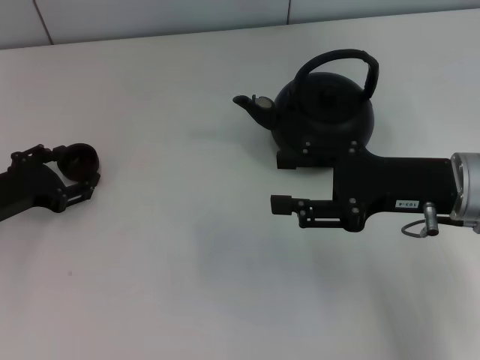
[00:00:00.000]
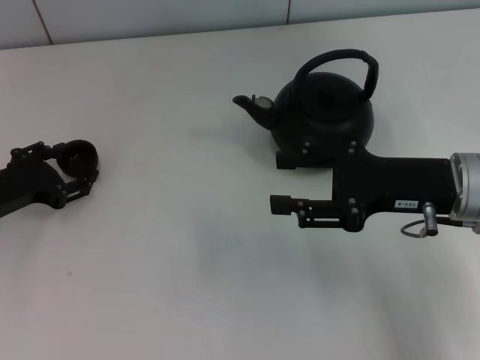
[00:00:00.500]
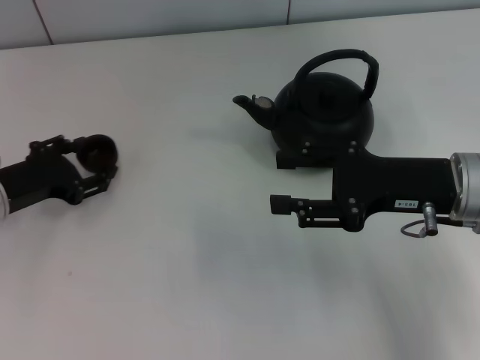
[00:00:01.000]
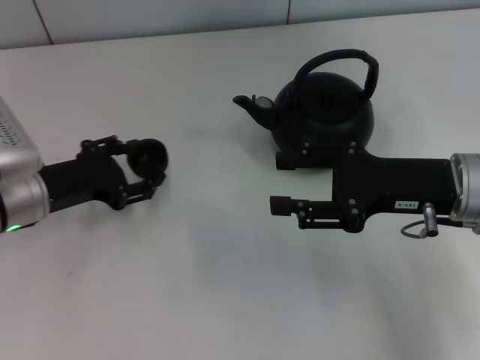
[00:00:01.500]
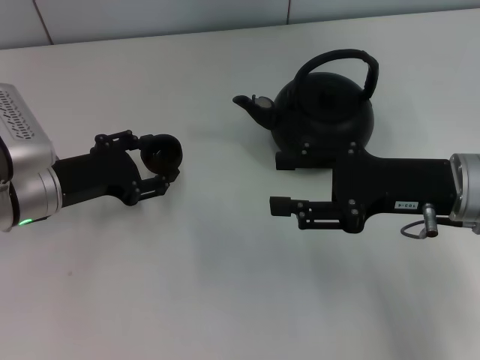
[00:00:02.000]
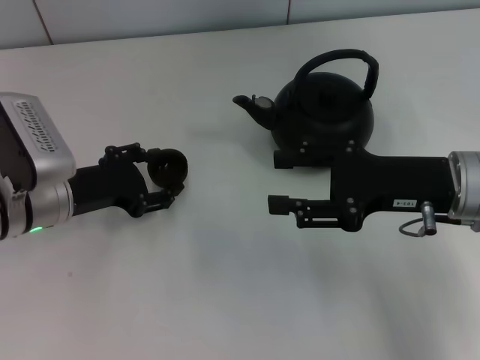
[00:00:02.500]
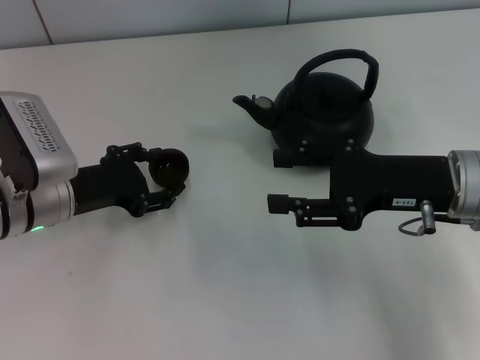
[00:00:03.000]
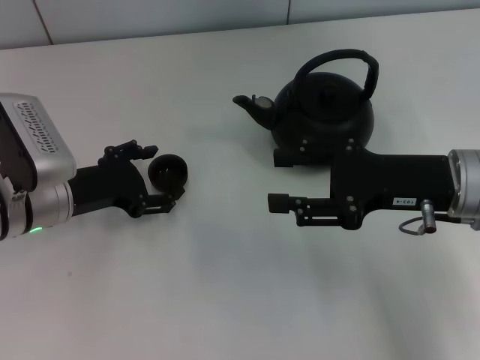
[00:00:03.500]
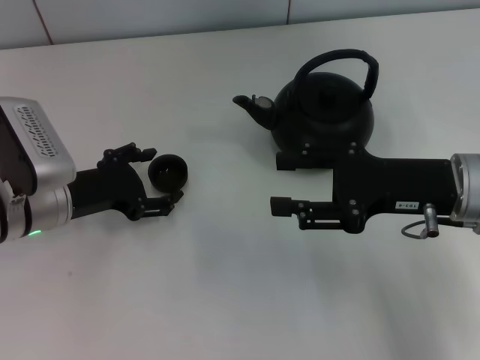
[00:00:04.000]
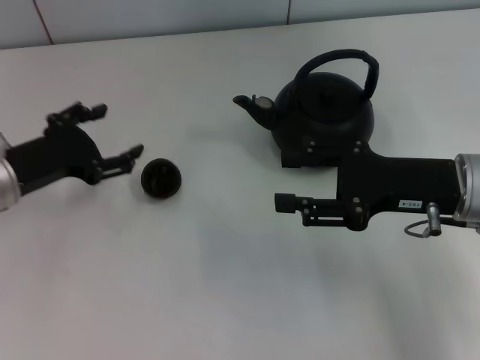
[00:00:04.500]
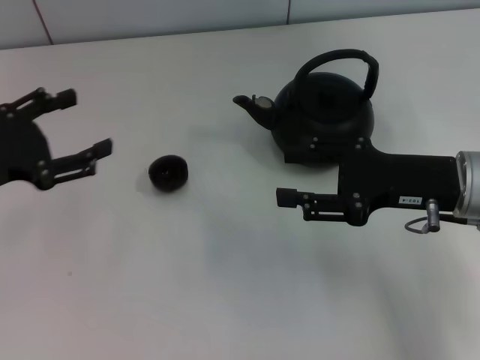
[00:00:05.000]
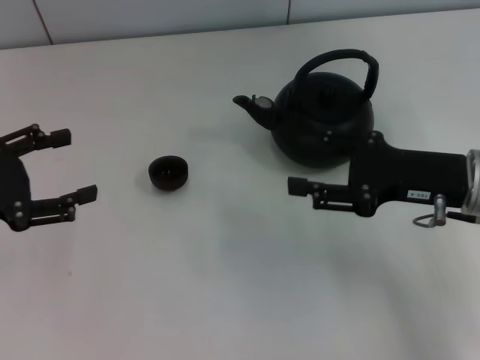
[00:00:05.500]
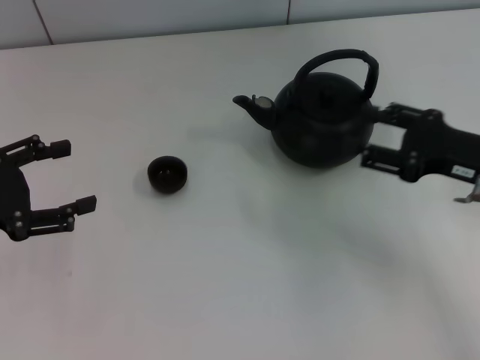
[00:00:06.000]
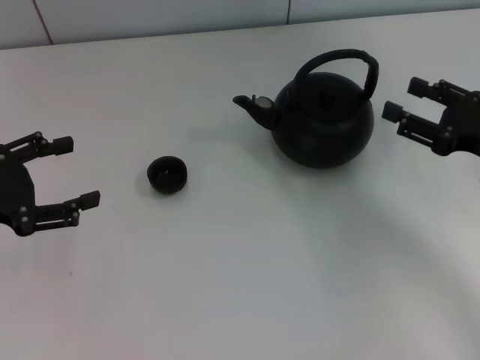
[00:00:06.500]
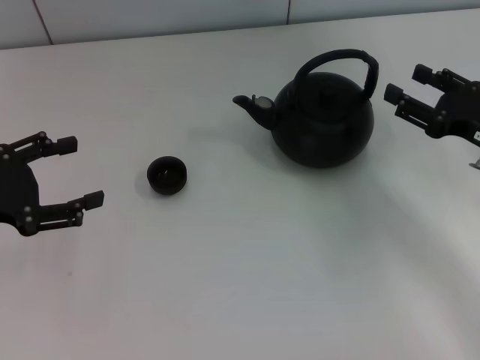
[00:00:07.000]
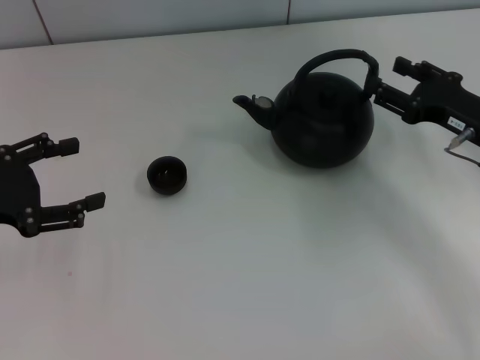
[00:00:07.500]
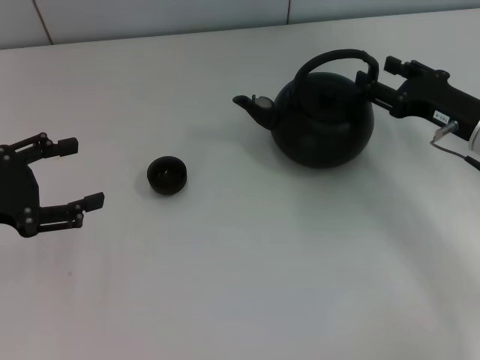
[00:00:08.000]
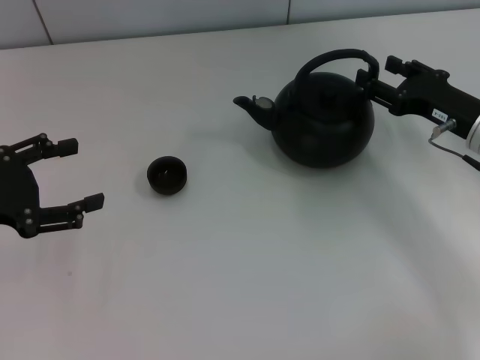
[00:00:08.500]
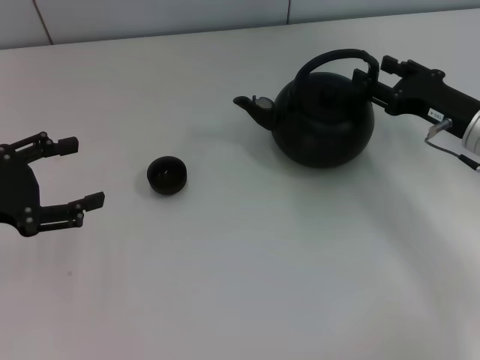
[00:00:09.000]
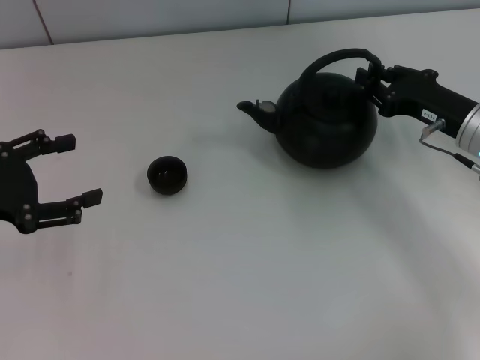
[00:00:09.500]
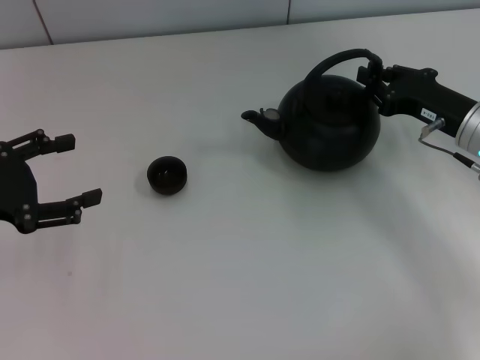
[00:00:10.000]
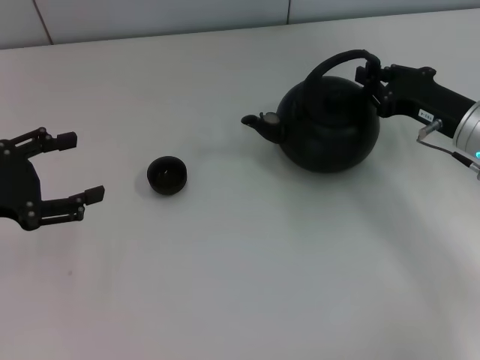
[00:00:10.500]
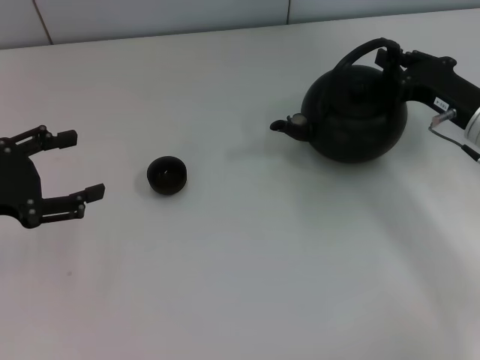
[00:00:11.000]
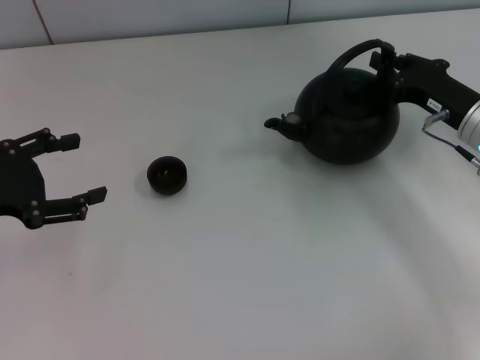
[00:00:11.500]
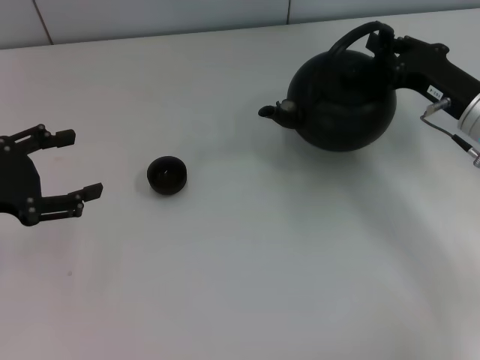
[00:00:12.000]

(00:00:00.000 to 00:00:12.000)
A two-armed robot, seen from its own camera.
Task of the whole recording: Grasp the handle of the teapot with one hand and pour tea into the teacup.
Step, 00:00:01.500 - 00:00:04.500: Place the teacup in the center of view with the left gripper.
00:00:00.000 - 00:00:02.000: The left gripper is displaced to the right by roughly 5 cm.
00:00:02.000 - 00:00:04.000: The left gripper opens its fingers.
00:00:04.000 - 00:00:06.000: The right gripper travels to the right by some 5 cm; the left gripper goes approximately 15 cm to the left, upward and backward.
00:00:06.000 - 00:00:08.000: The right gripper is displaced forward by roughly 5 cm.
00:00:08.000 - 00:00:10.000: The right gripper closes up.
00:00:10.000 - 00:00:12.000: The grippers make only small movements.

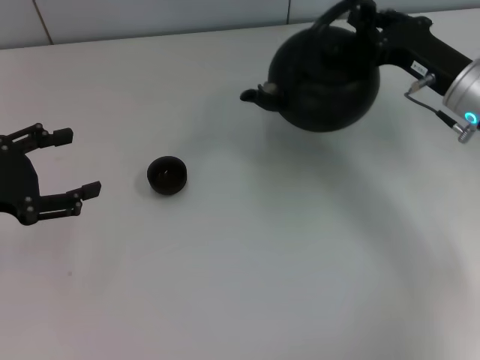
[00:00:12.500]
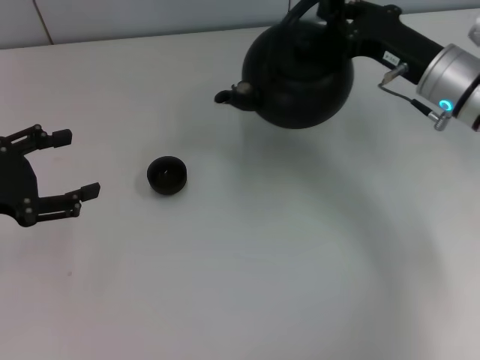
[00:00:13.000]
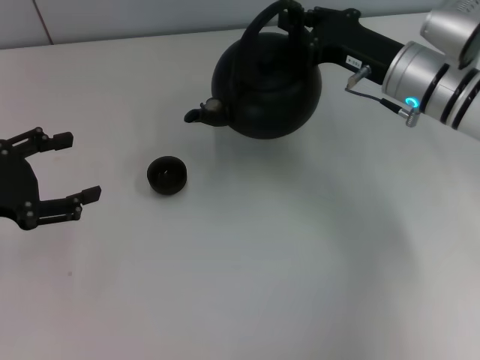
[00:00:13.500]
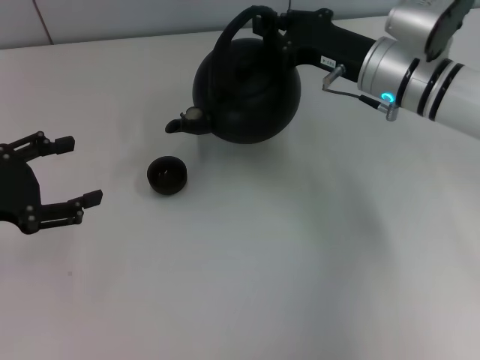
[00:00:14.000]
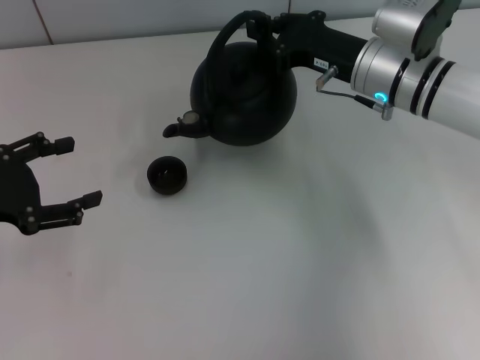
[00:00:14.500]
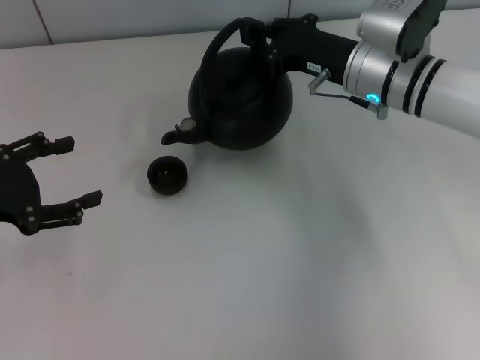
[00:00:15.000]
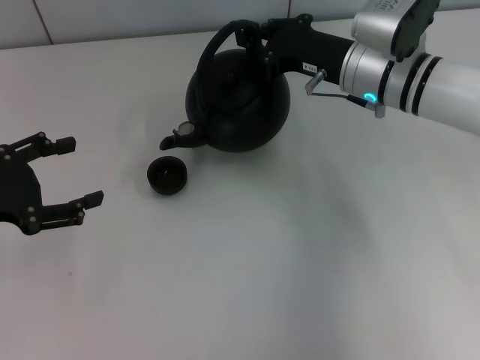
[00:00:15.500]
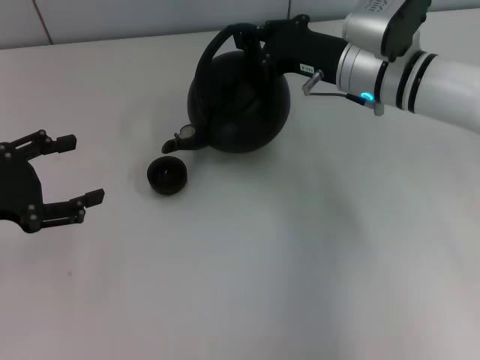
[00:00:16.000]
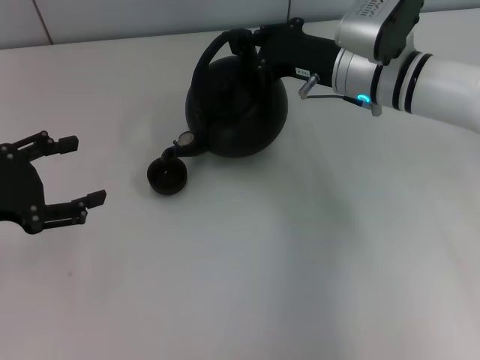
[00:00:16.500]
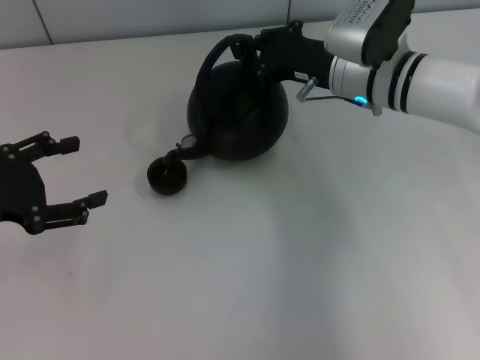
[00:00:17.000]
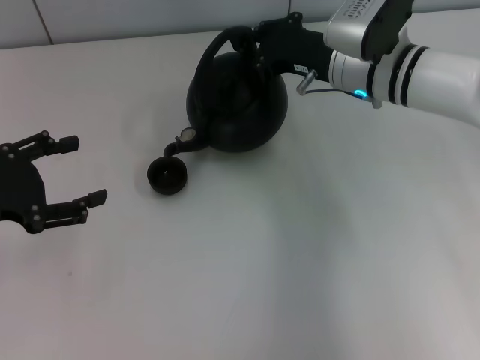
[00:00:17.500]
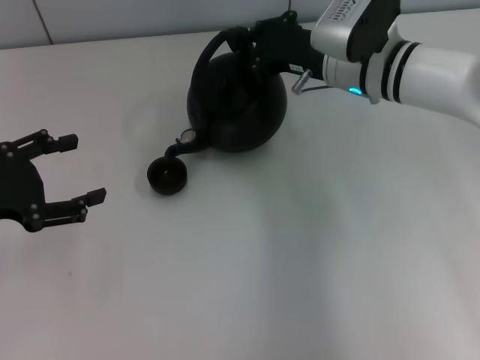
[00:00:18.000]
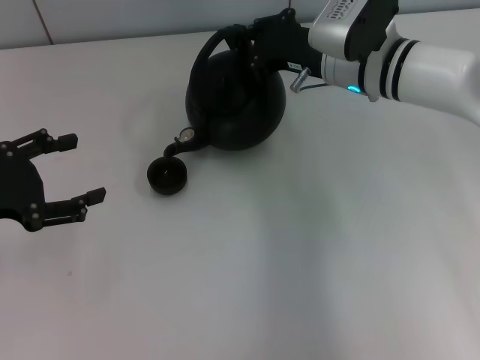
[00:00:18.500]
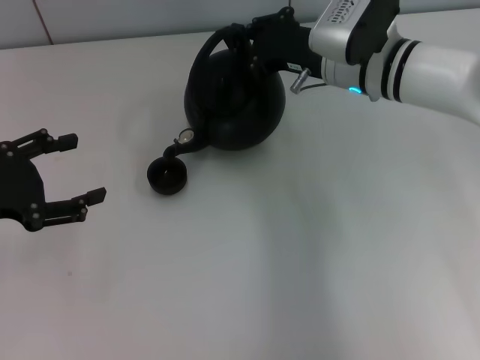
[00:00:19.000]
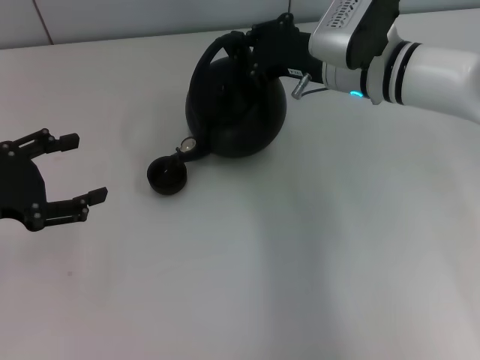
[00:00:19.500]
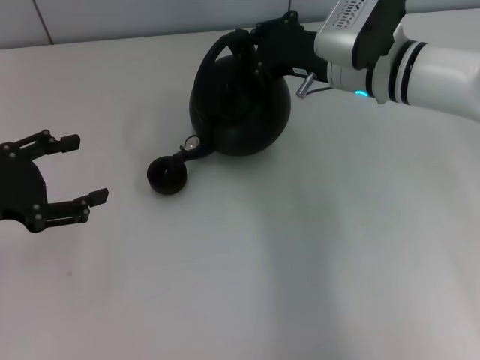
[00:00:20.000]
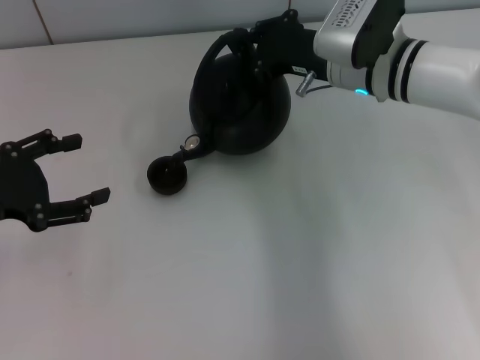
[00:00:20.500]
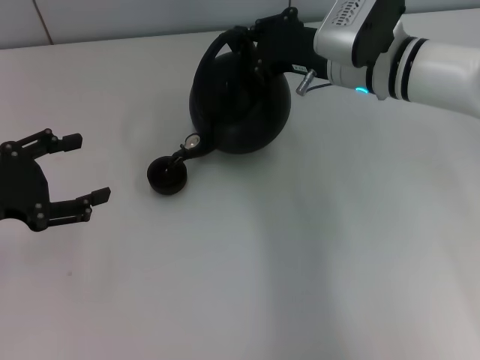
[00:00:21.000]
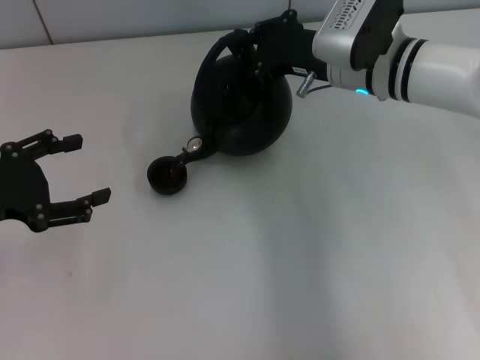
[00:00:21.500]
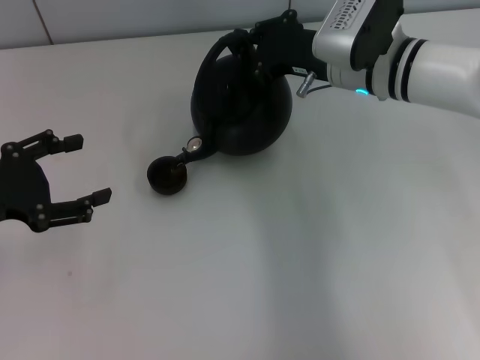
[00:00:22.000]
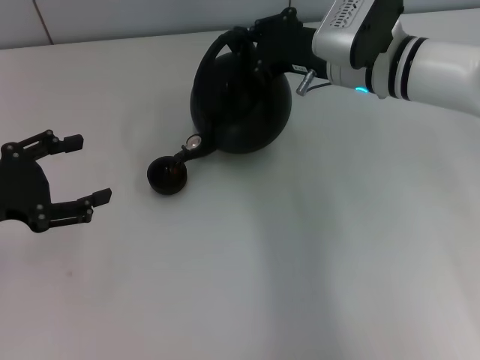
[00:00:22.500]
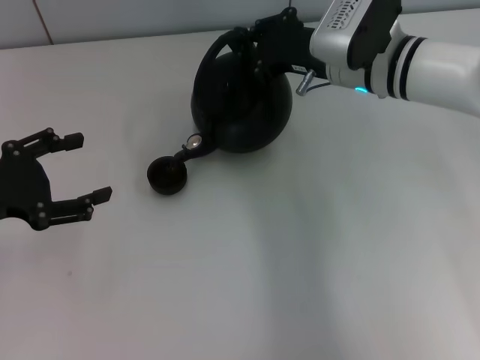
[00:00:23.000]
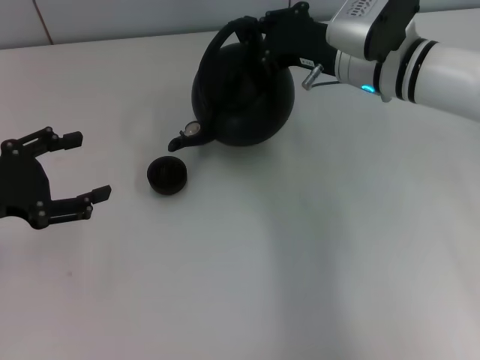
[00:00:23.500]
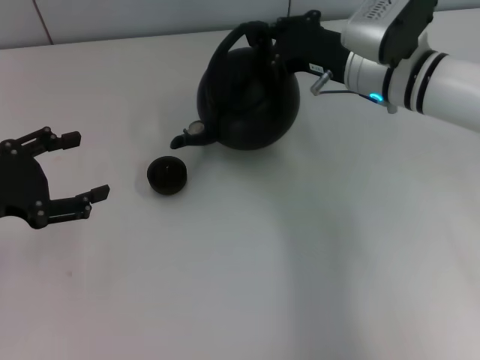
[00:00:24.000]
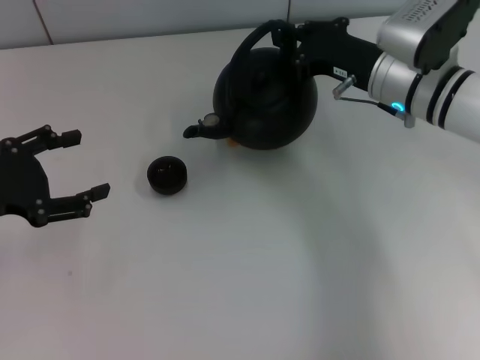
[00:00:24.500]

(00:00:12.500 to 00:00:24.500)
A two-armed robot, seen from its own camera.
Task of the whole recording: Grasp the handle of the teapot with one hand and pour tea into the teacup.
00:00:12.500 - 00:00:14.500: The right gripper is displaced to the left by some 10 cm.
00:00:14.500 - 00:00:18.500: The grippers make only small movements.
00:00:18.500 - 00:00:22.500: Both grippers stay about where they are.
00:00:22.500 - 00:00:24.500: The grippers stay close to where they were, moving slightly.

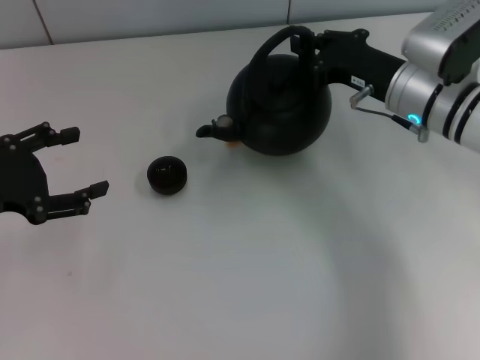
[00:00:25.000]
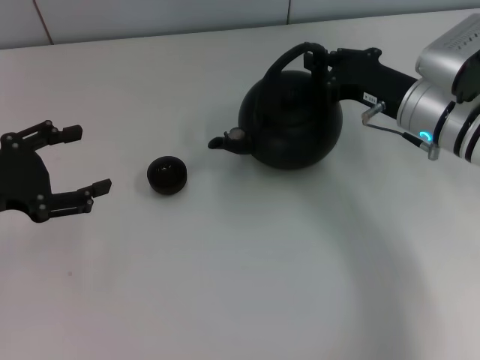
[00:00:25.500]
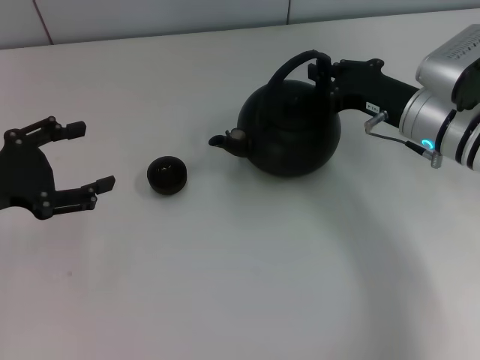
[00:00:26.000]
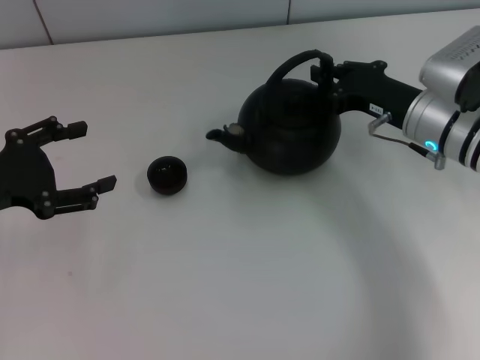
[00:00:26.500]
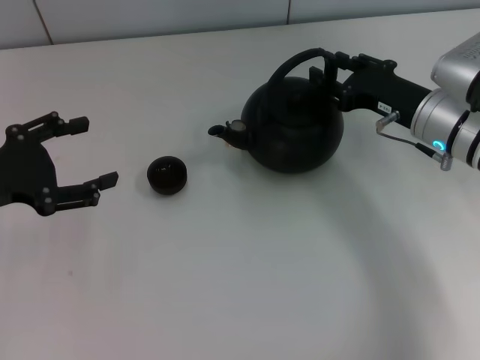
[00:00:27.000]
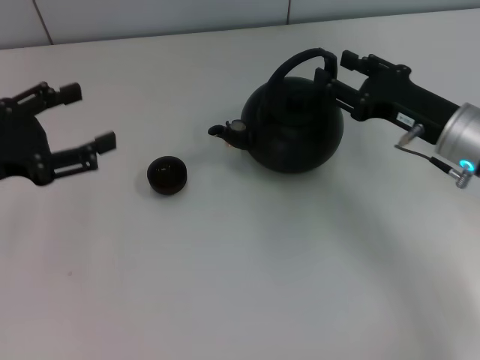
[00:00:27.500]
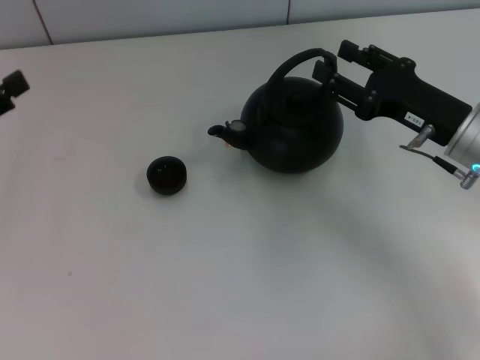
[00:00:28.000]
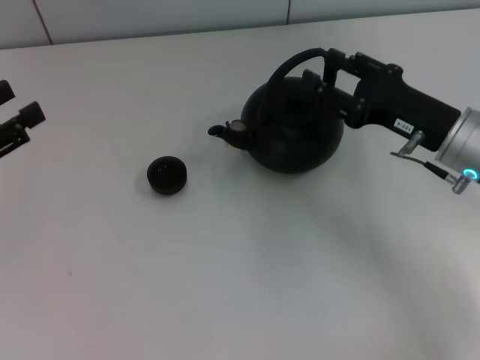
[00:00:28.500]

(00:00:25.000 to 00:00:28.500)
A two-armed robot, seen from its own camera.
Task of the whole recording: Grasp the handle of the teapot with one hand and pour tea into the teacup.
Step, 00:00:25.000 - 00:00:27.500: Put down the teapot with the right gripper.
00:00:25.000 - 00:00:27.000: The right gripper opens.
00:00:27.000 - 00:00:28.500: The left gripper closes up. The right gripper opens.
